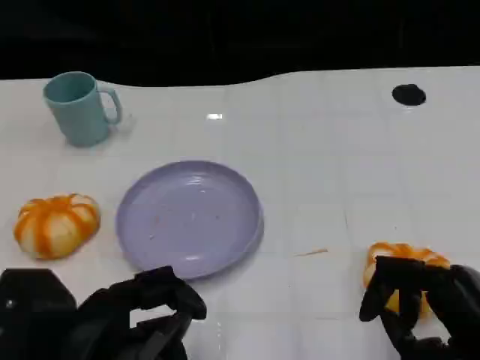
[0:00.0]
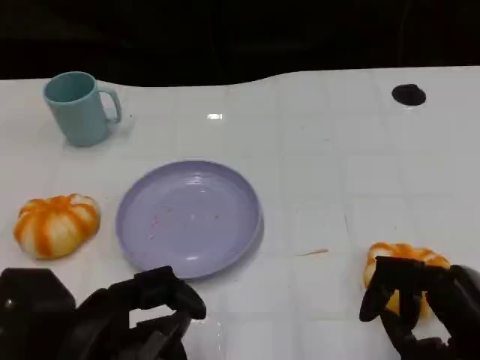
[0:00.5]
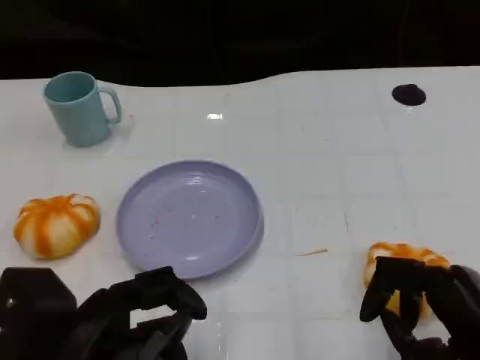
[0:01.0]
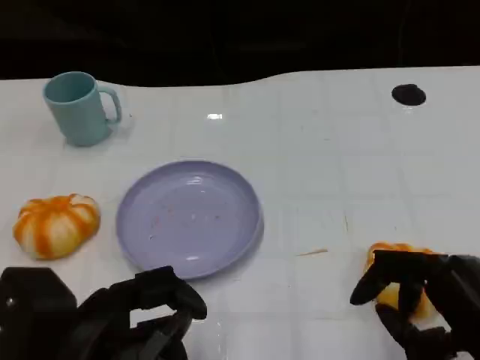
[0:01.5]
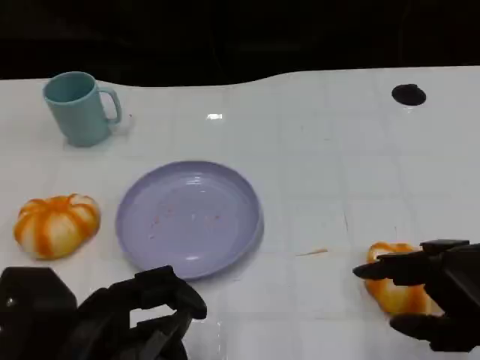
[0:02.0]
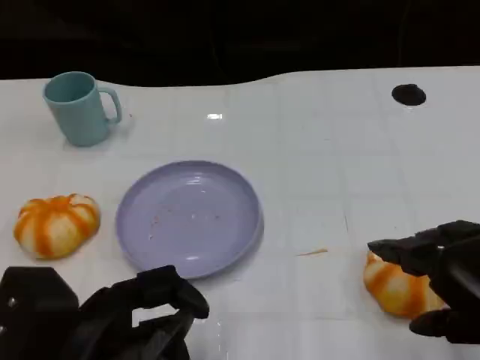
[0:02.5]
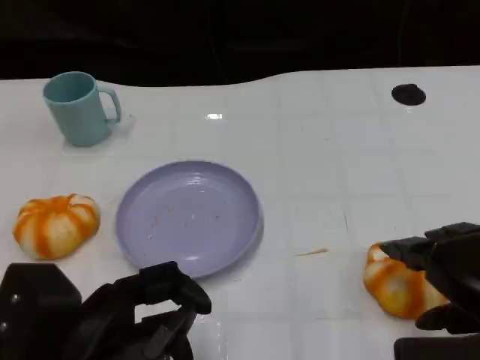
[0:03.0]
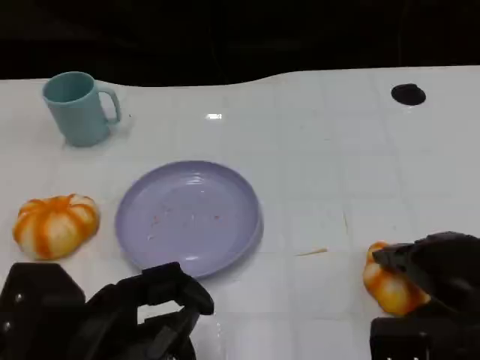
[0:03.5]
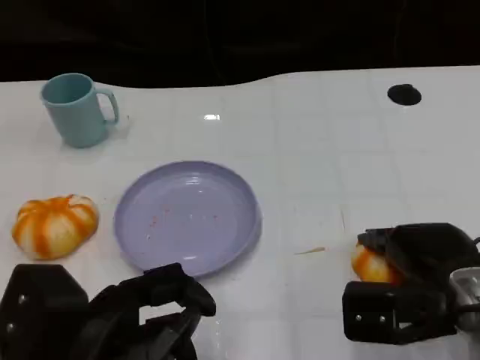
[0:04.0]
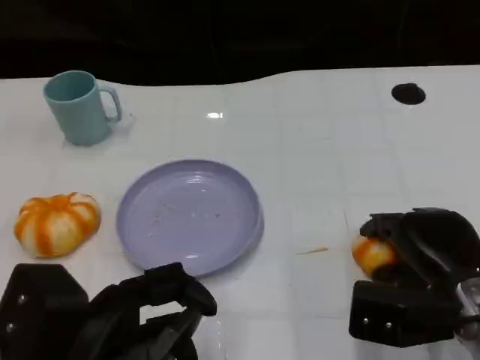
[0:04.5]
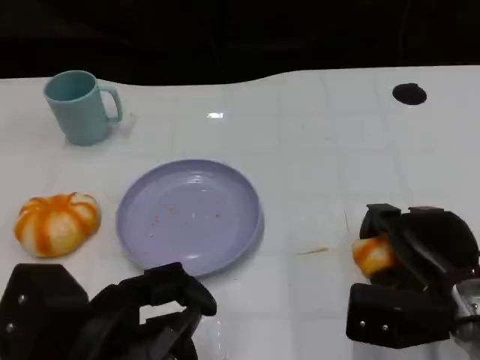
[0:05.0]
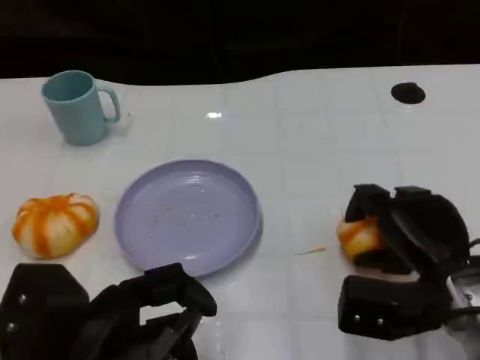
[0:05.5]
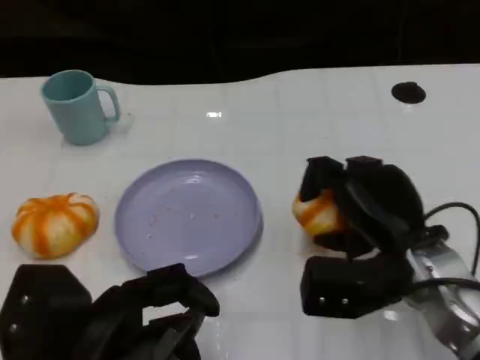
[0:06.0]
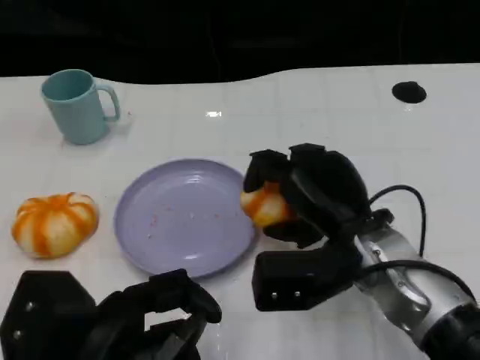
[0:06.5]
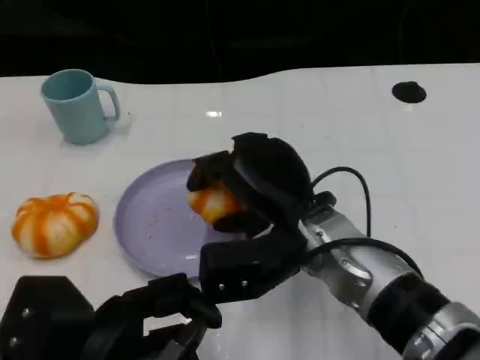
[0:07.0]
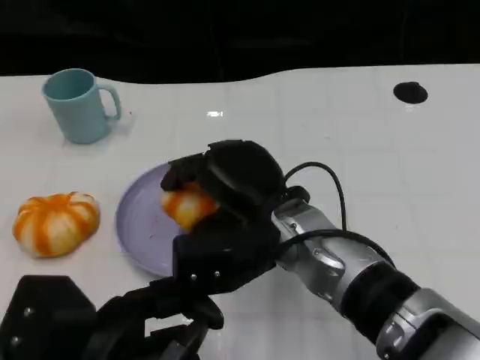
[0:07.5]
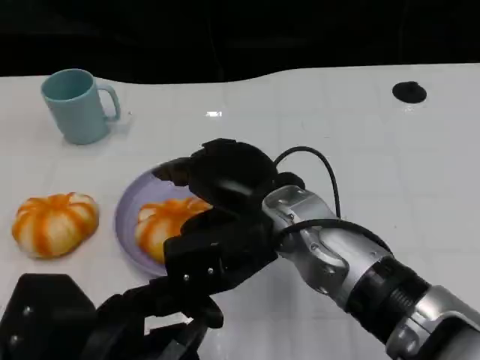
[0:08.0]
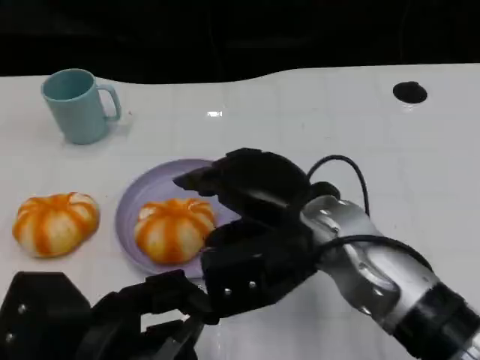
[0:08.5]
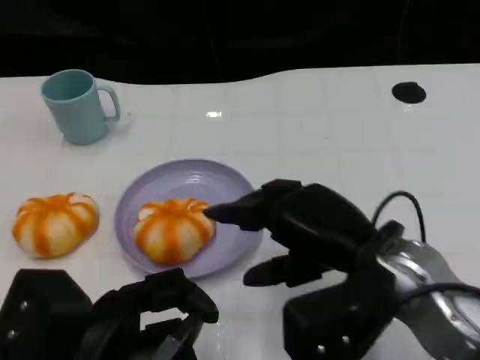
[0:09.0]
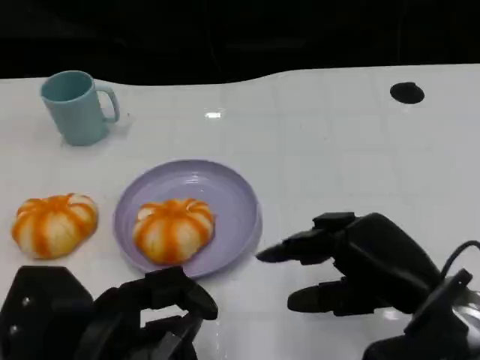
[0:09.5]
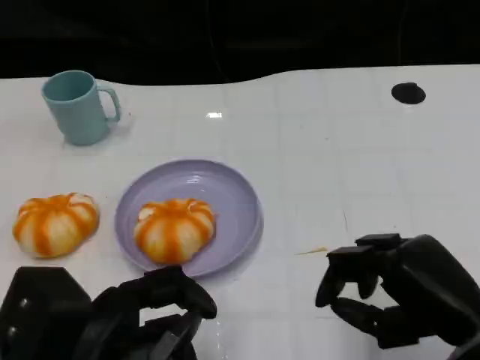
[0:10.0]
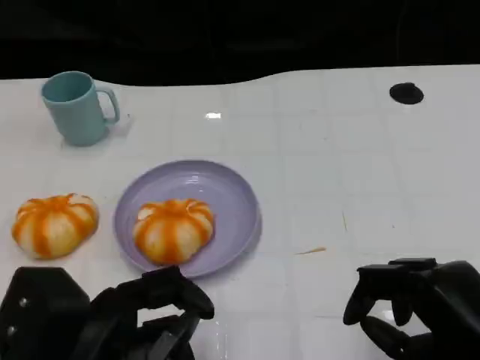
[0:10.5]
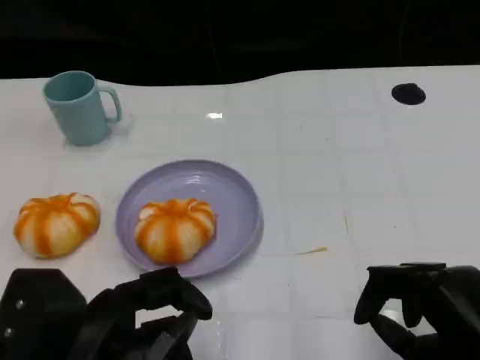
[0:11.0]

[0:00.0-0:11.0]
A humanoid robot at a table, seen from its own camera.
Task of the whole recording: Grasp the bread from the table and place it into the plate.
0:00.0 to 0:02.0: The right hand travels upward by about 5 cm.
0:02.0 to 0:03.5: The right hand heads forward, covering approximately 5 cm.
0:03.5 to 0:05.5: The right hand moves approximately 5 cm.
0:05.5 to 0:07.5: The right hand goes roughly 15 cm to the left.
0:07.5 to 0:09.0: The right hand goes approximately 10 cm to the right.
0:09.0 to 0:11.0: The right hand travels to the right and backward by roughly 15 cm.

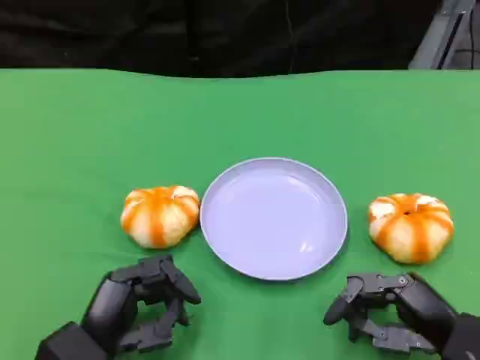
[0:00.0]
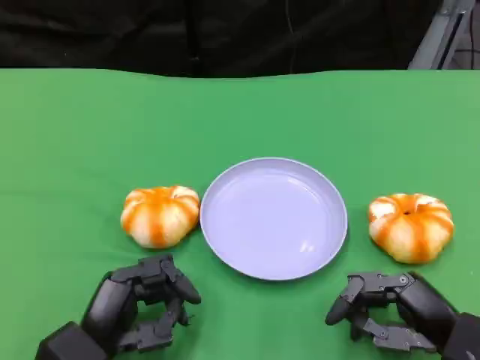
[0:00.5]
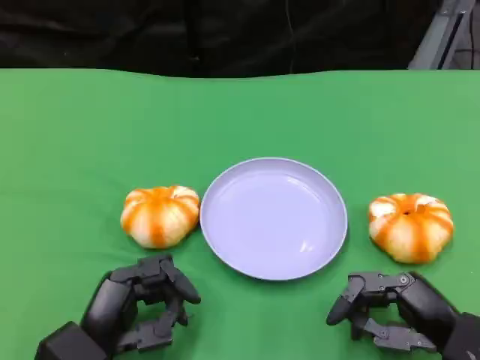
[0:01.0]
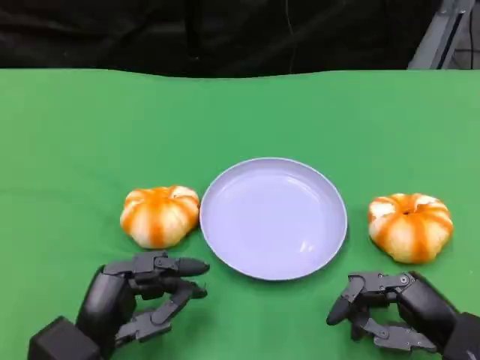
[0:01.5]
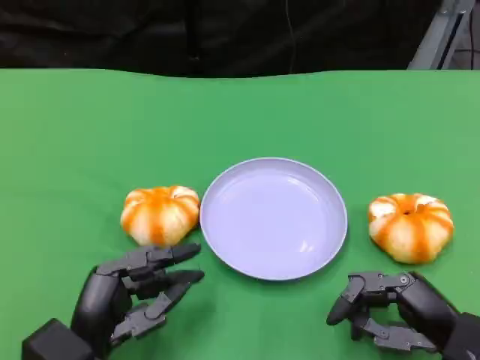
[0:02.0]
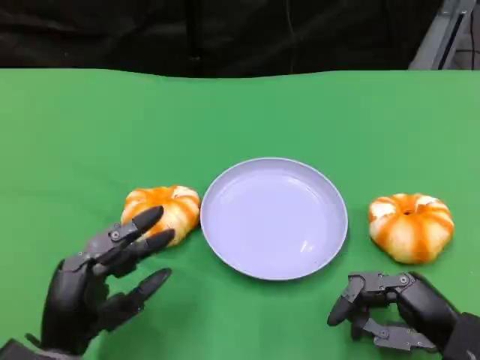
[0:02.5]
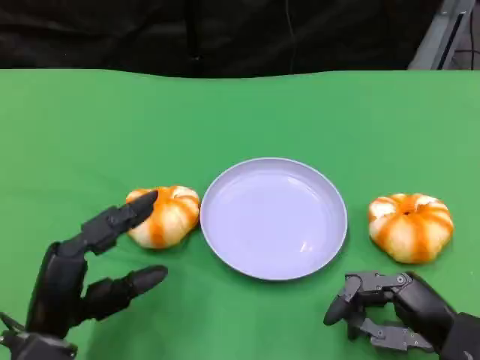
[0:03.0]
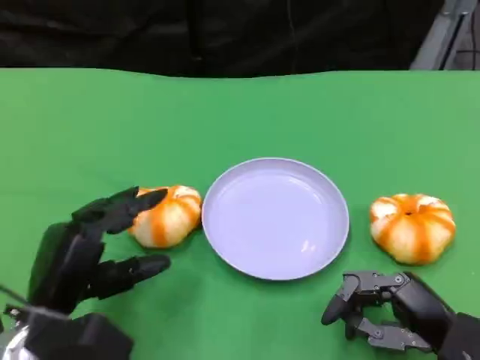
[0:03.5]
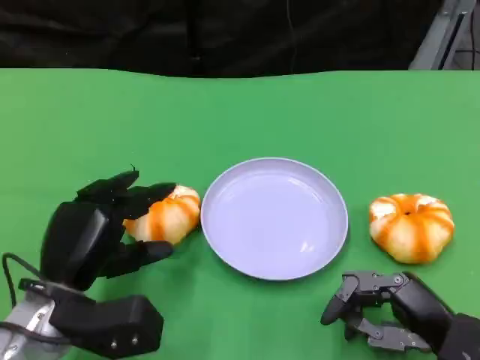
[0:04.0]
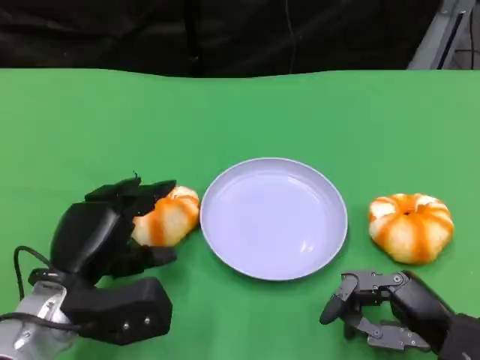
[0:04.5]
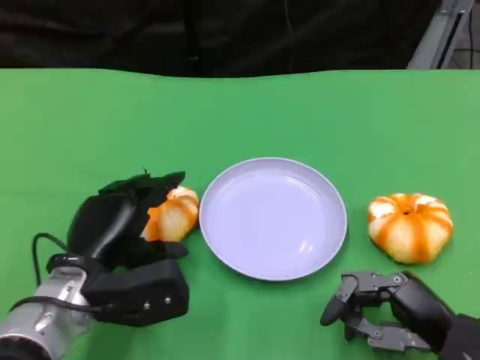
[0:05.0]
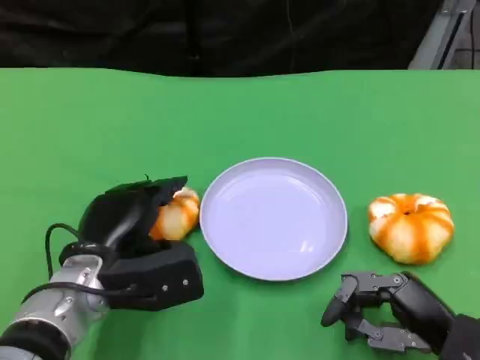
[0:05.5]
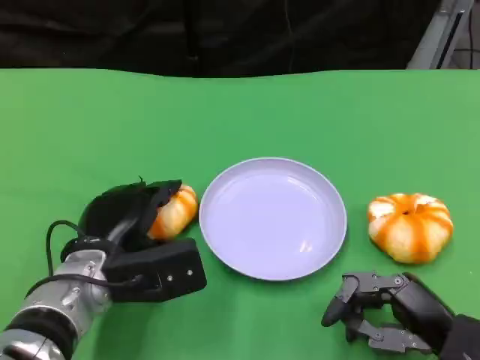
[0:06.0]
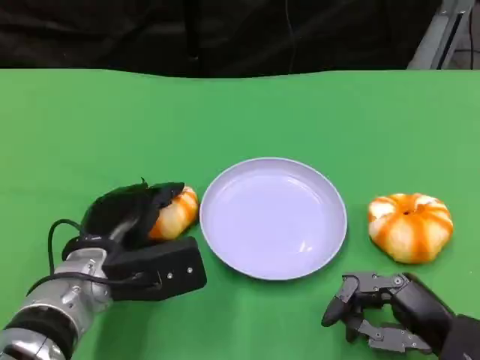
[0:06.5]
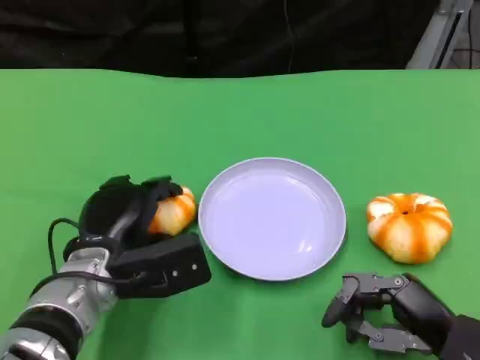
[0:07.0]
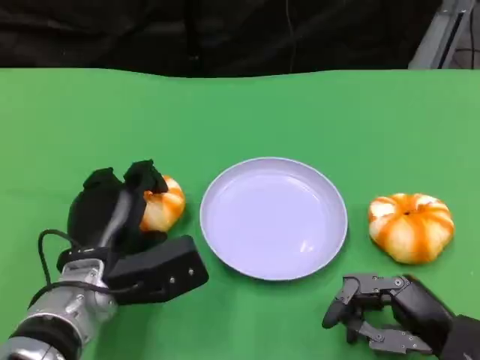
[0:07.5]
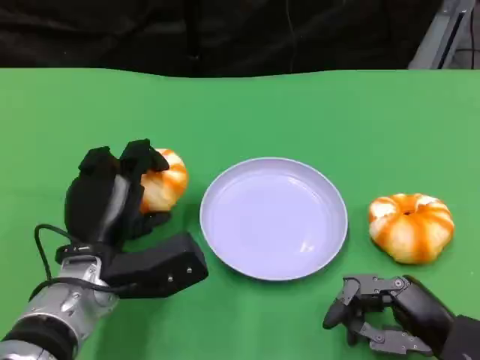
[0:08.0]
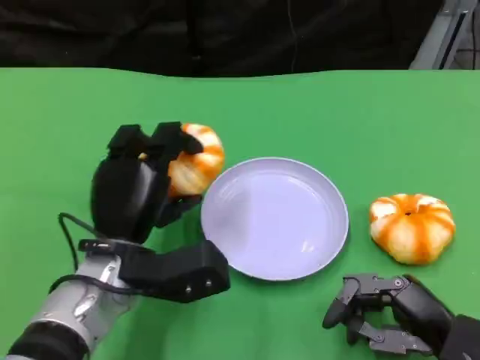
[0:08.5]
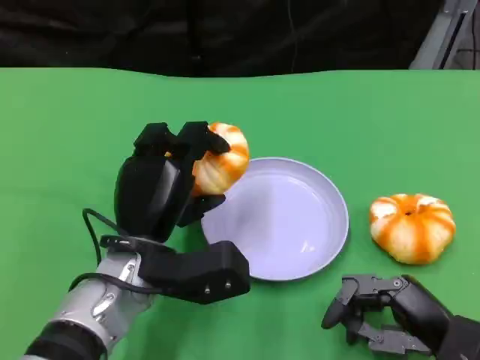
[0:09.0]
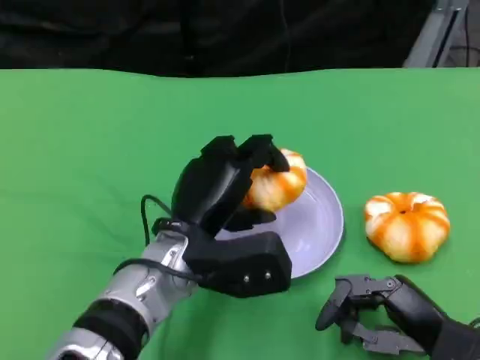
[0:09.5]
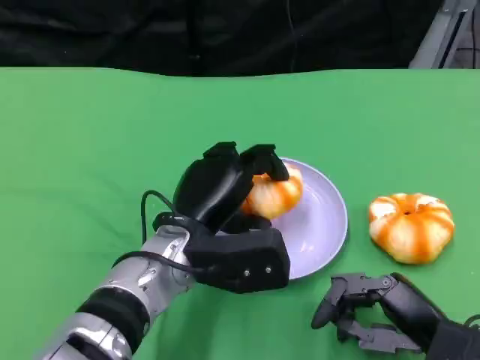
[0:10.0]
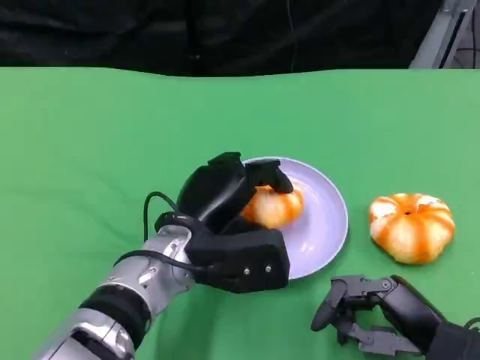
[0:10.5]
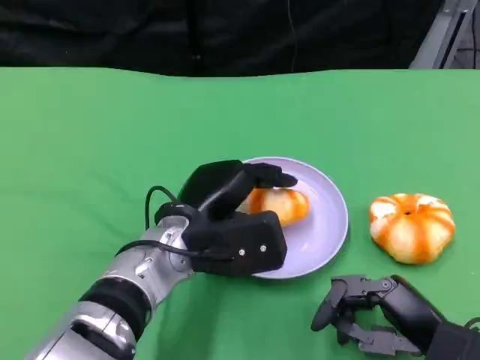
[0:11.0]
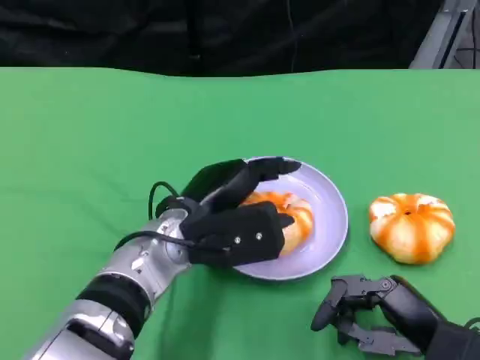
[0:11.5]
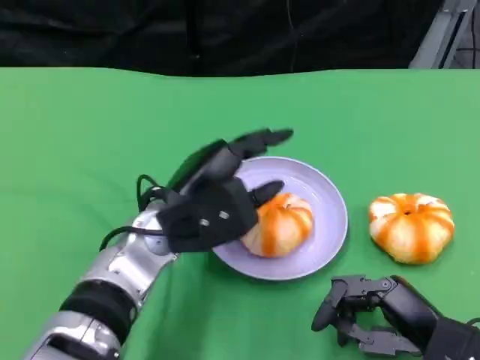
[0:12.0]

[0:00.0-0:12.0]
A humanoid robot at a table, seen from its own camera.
Task of the whole recording: Grasp the bread from the table and place it into the plate.
0:00.0 to 0:02.0: The hands stay close to where they were, moving slightly.
0:02.0 to 0:04.0: The left hand travels forward by about 5 cm.
0:04.0 to 0:06.0: The left hand moves some 5 cm.
0:08.0 to 0:10.0: The left hand heads to the right, covering roughly 10 cm.

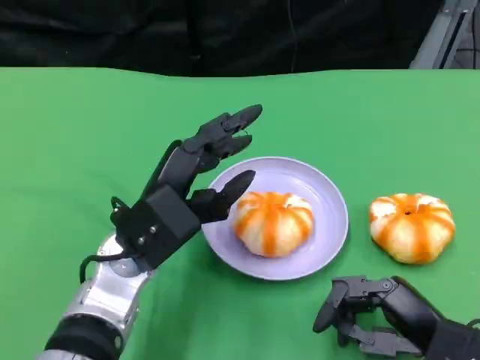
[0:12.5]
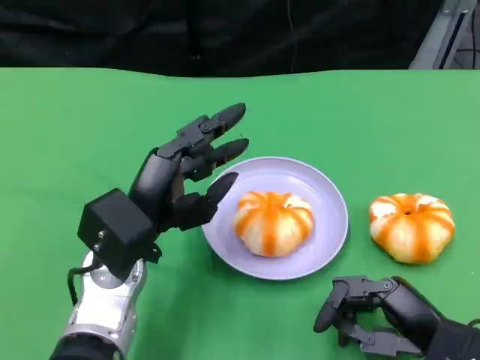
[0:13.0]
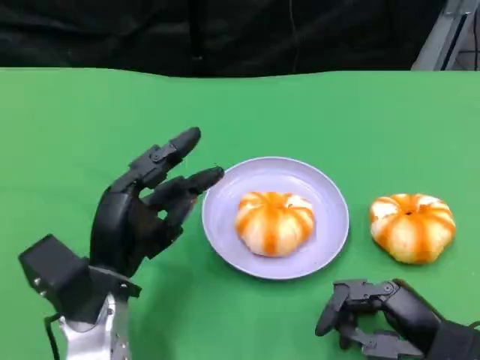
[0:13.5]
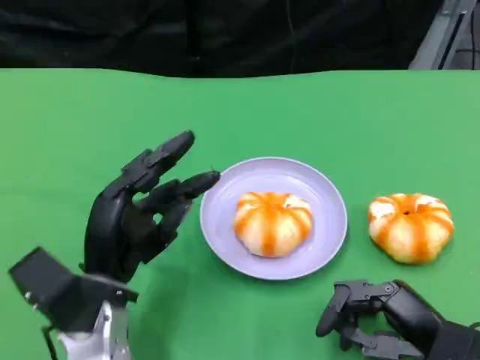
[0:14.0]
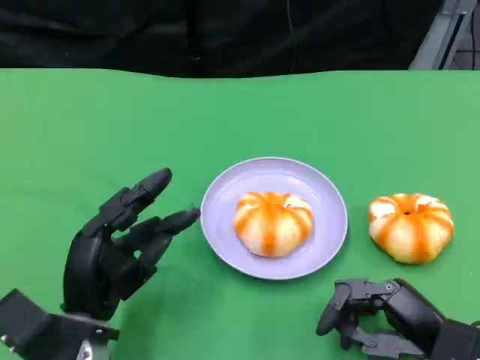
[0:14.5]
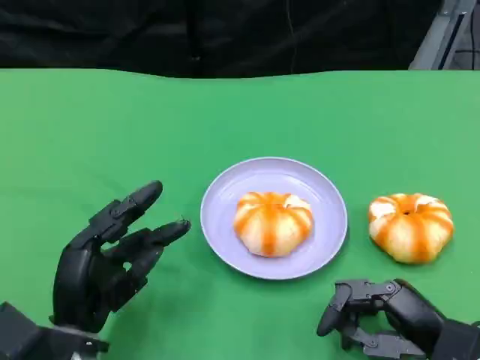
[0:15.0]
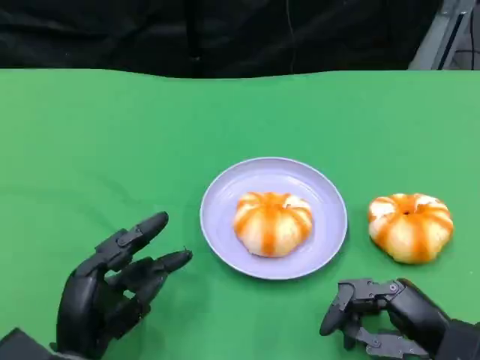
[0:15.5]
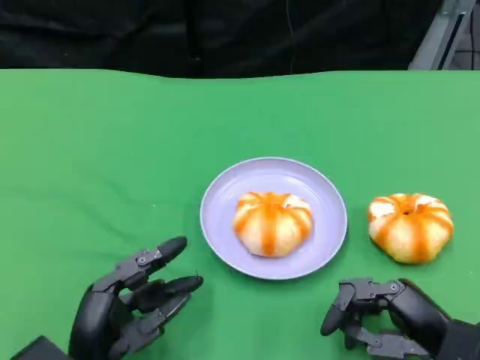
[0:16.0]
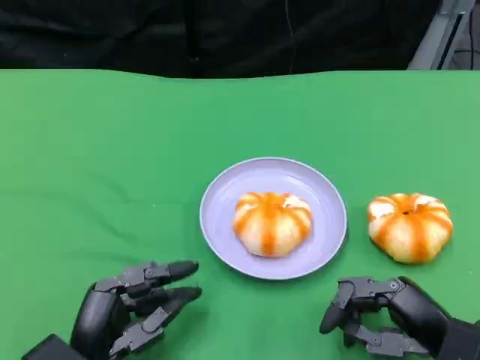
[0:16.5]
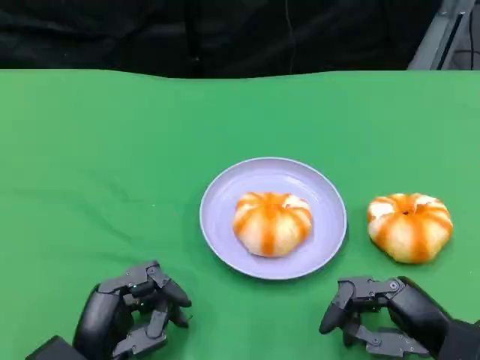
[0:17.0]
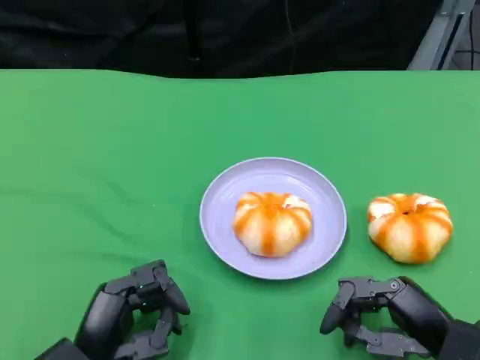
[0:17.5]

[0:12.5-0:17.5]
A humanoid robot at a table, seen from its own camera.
Task of the whole recording: Grasp the bread from the table and place it into the plate.
0:12.5 to 0:15.0: The left hand goes approximately 15 cm downward, backward and to the left.
0:15.0 to 0:17.5: The hands move only a little.
